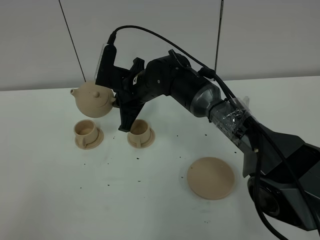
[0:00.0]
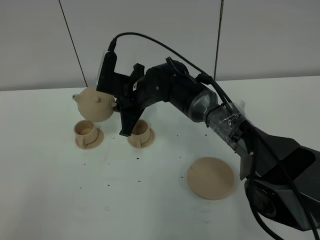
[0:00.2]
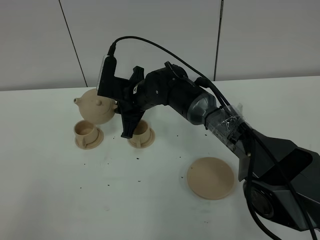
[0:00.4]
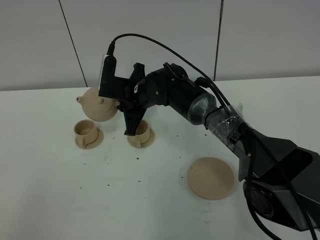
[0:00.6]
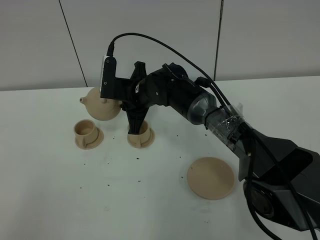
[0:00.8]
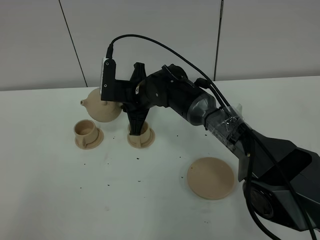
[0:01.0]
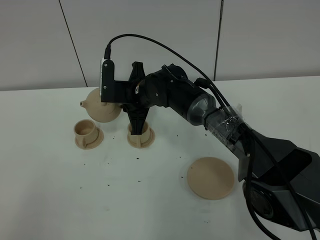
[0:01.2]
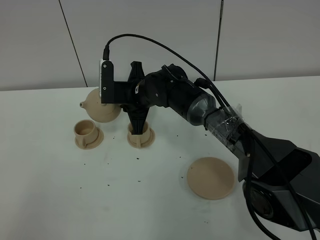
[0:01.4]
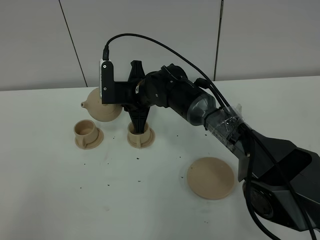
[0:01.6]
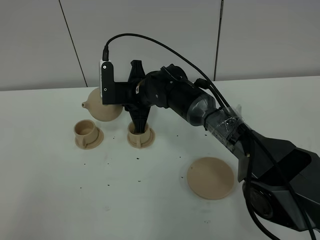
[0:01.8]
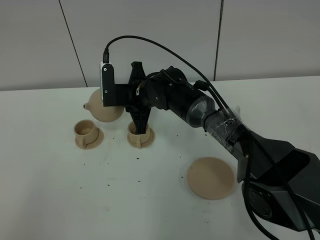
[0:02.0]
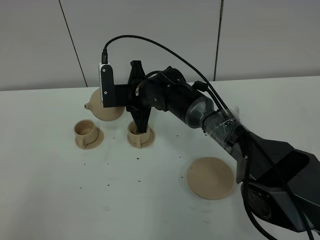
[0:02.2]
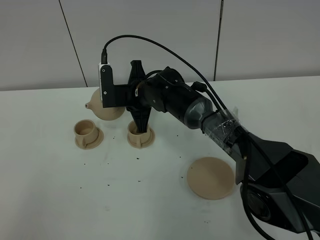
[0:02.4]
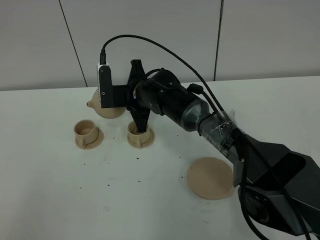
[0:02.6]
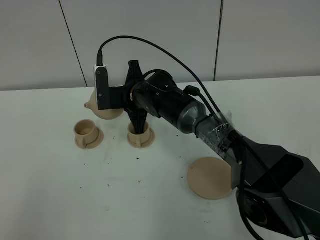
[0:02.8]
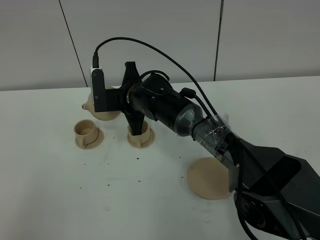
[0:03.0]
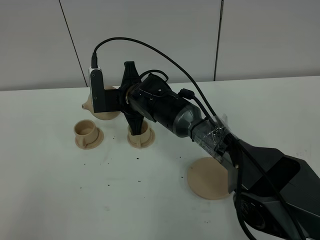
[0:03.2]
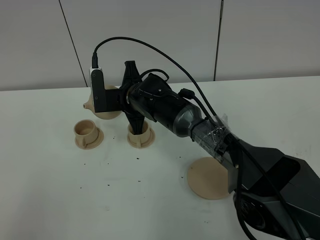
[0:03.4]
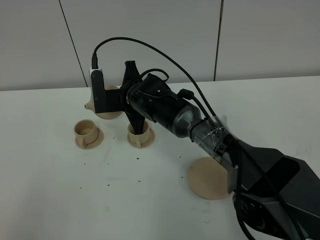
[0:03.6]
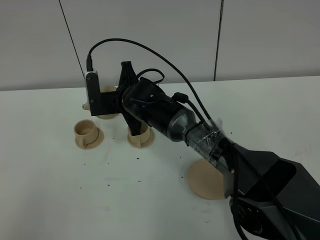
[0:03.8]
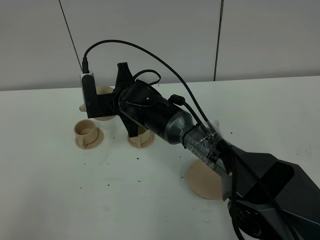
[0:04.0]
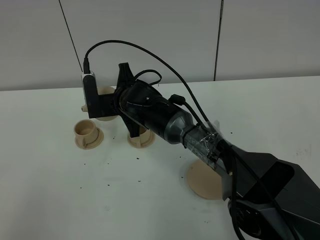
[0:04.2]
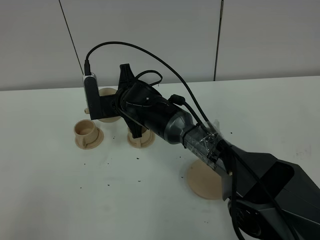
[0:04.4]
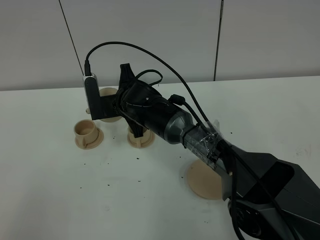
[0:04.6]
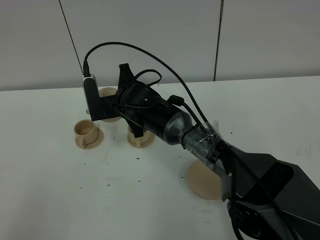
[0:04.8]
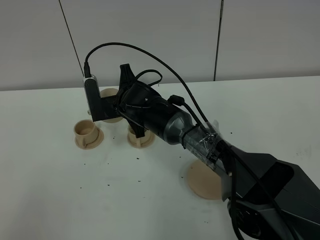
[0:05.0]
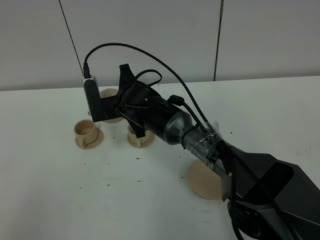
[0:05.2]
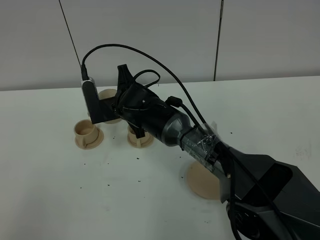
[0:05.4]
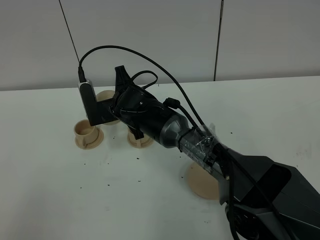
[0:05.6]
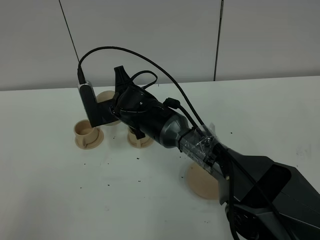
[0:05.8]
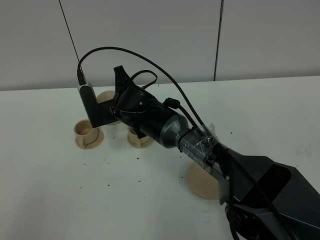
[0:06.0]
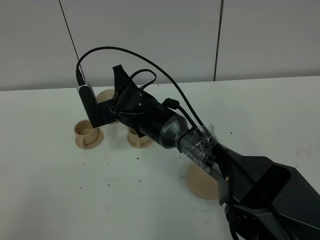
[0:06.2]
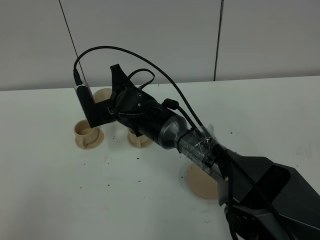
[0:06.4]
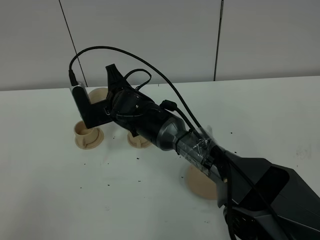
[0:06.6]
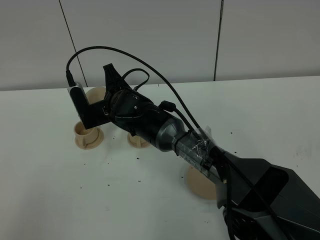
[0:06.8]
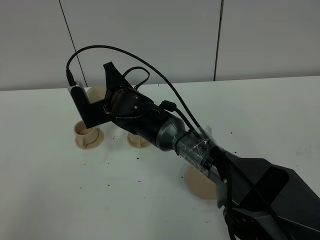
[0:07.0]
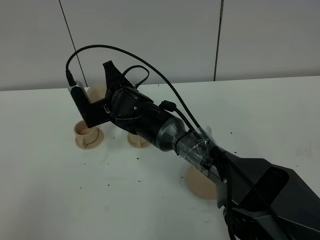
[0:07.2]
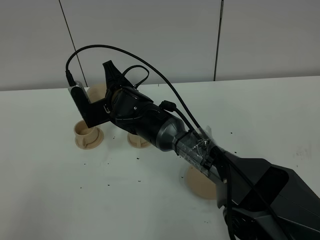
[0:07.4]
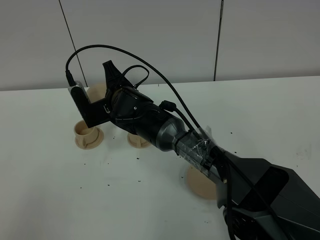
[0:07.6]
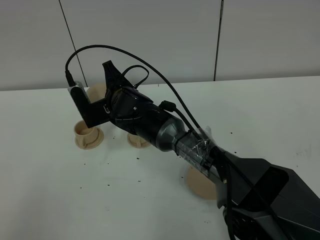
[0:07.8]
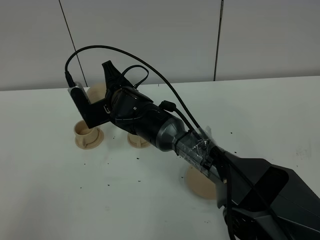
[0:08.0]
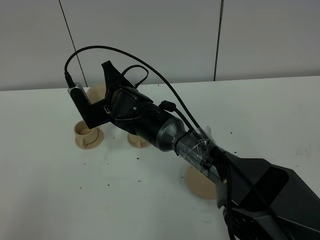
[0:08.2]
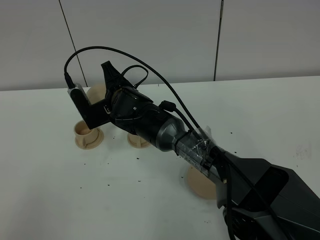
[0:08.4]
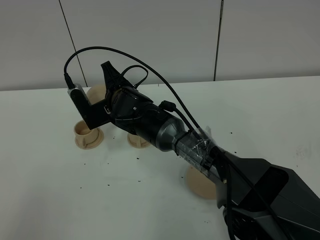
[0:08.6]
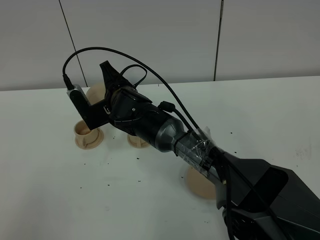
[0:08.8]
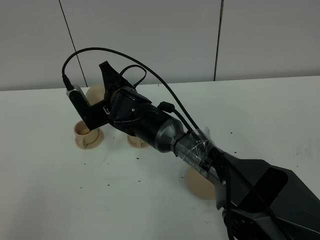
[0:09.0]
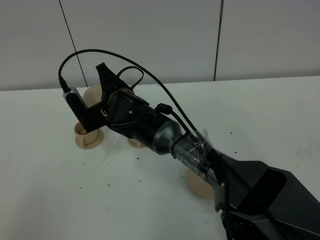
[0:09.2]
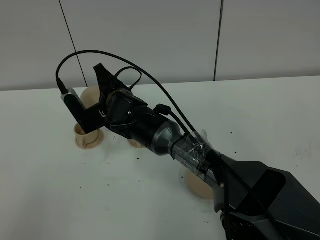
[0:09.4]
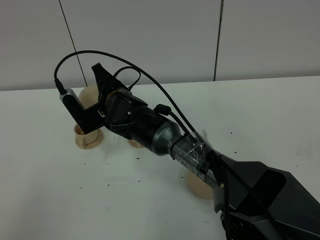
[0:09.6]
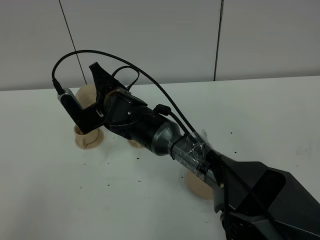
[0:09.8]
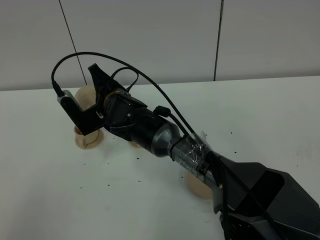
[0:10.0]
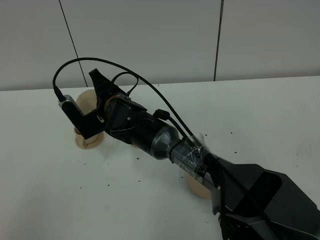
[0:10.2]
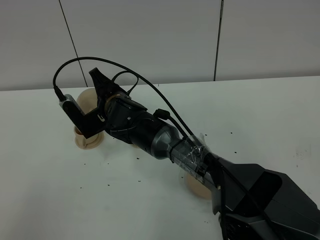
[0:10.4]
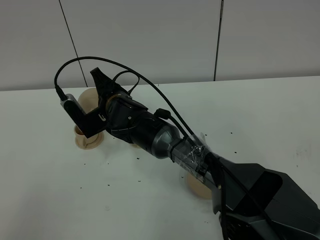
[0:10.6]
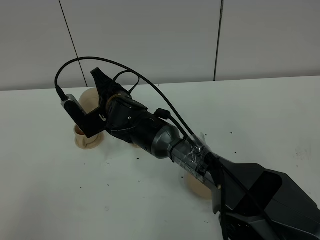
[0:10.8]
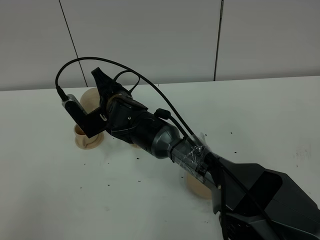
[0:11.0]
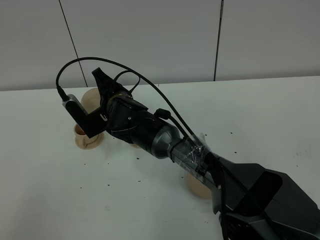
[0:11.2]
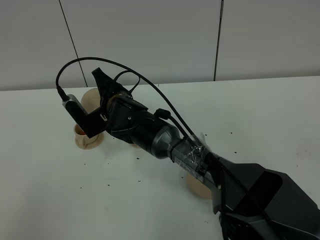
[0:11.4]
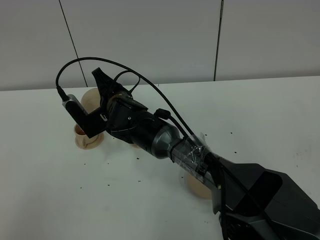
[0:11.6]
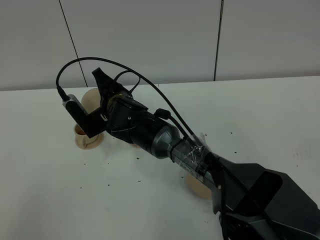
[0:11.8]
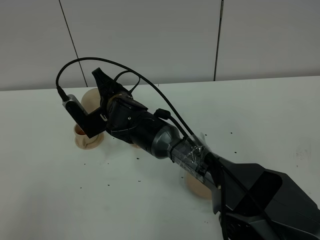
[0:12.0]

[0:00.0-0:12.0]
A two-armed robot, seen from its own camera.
Task of the whole recording: grasp the brown teapot and pour the tea into the two brown teacups one by one, put the brown teapot back in its original place.
0:00.0 to 0:01.6: The grippers make only small movements.
0:01.6 to 0:04.4: There are only small adjustments of the grippers.
0:04.4 to 0:07.6: The grippers stay close to where they were, moving slightly.
0:07.6 to 0:09.0: Both grippers stay put.
0:09.0 to 0:10.4: The grippers stay close to where they were, moving slightly.
0:10.4 to 0:12.0: Both grippers stay put.

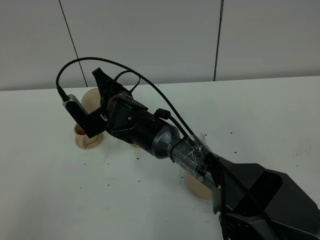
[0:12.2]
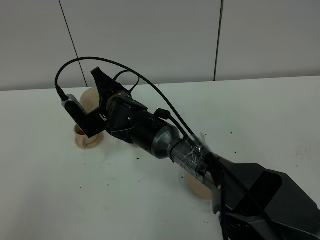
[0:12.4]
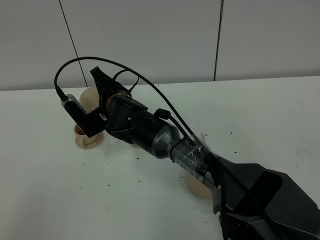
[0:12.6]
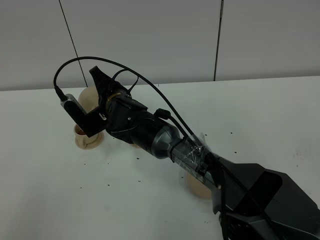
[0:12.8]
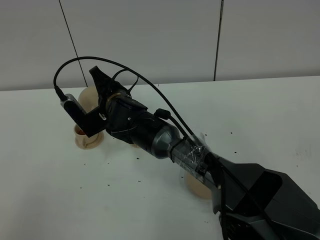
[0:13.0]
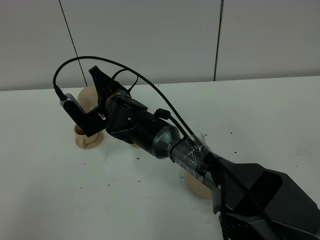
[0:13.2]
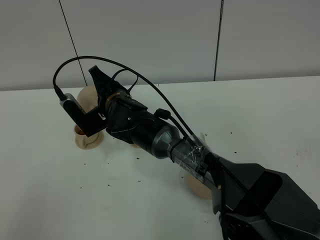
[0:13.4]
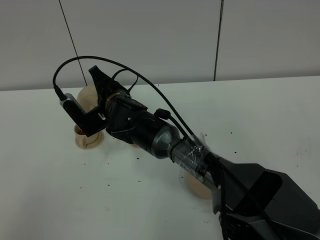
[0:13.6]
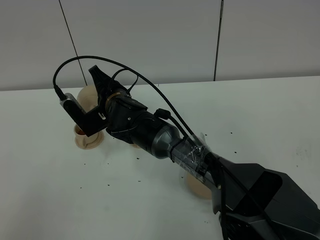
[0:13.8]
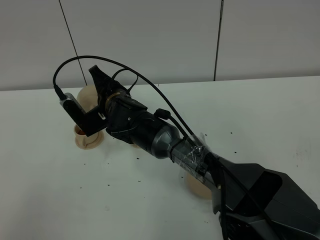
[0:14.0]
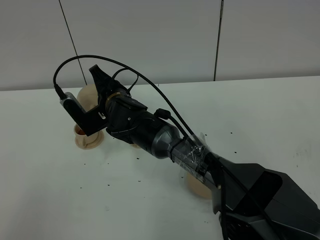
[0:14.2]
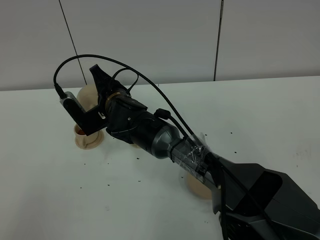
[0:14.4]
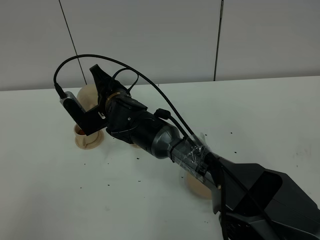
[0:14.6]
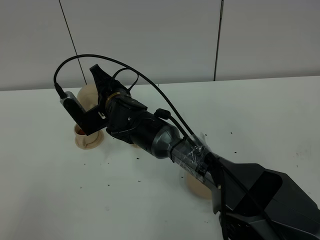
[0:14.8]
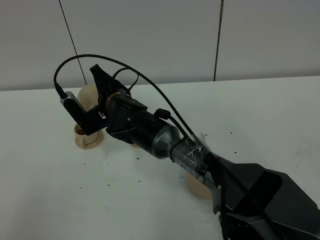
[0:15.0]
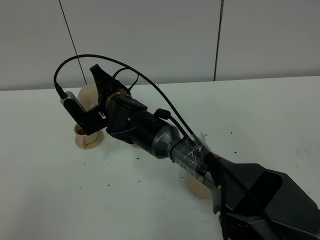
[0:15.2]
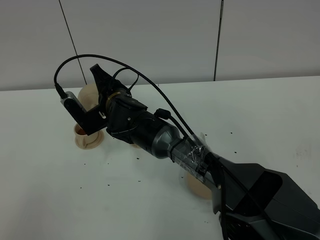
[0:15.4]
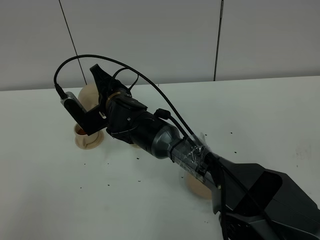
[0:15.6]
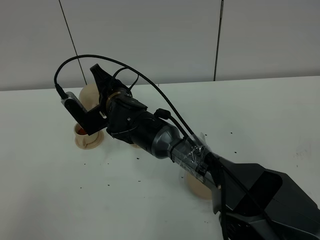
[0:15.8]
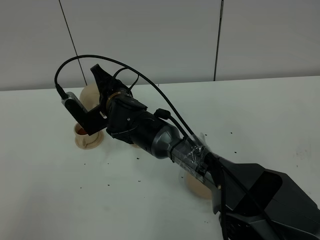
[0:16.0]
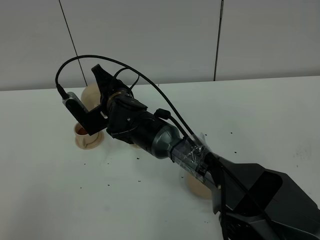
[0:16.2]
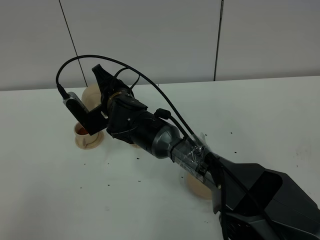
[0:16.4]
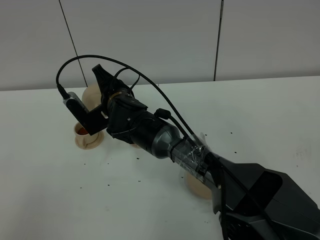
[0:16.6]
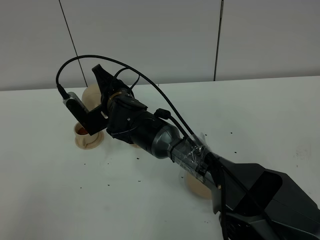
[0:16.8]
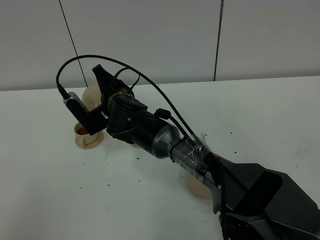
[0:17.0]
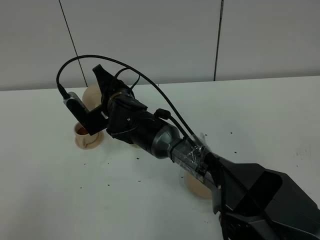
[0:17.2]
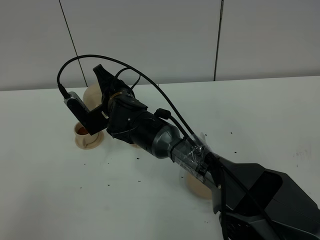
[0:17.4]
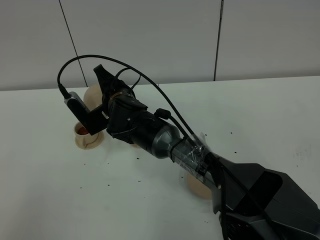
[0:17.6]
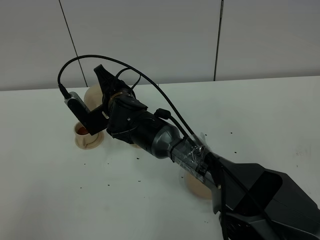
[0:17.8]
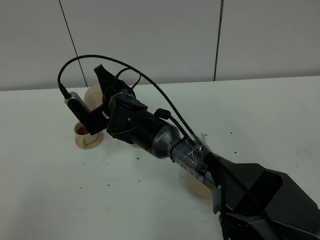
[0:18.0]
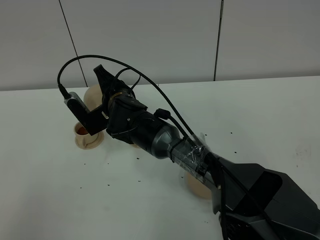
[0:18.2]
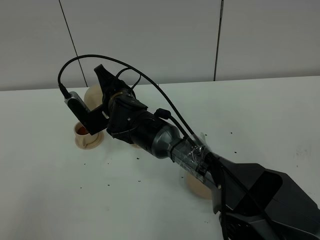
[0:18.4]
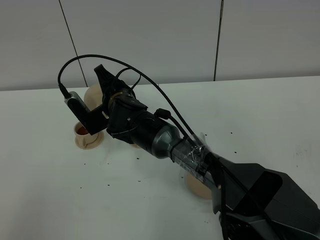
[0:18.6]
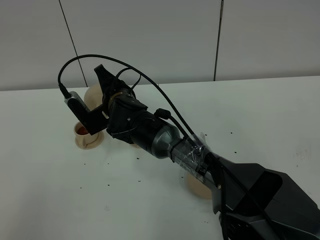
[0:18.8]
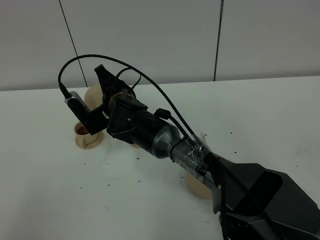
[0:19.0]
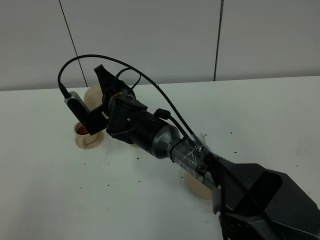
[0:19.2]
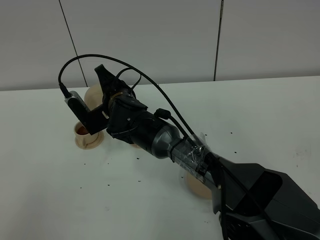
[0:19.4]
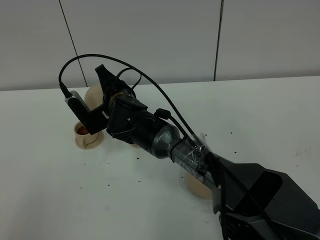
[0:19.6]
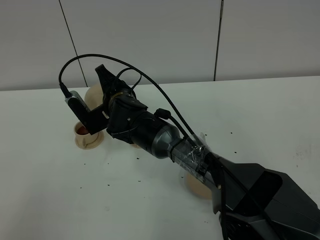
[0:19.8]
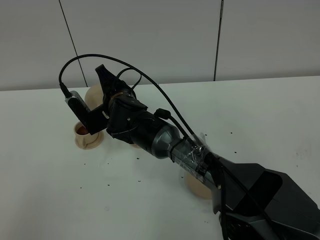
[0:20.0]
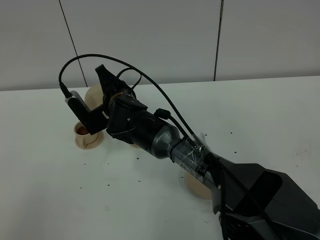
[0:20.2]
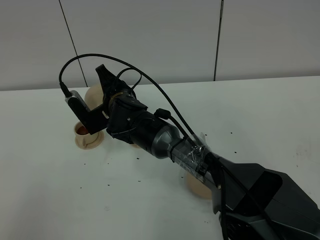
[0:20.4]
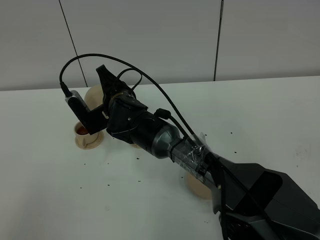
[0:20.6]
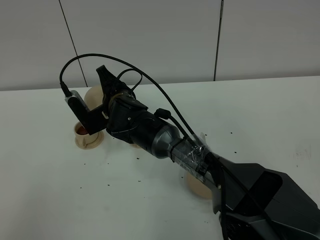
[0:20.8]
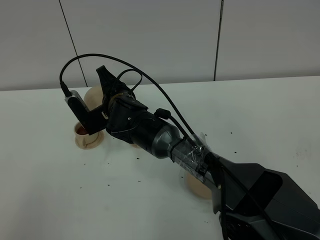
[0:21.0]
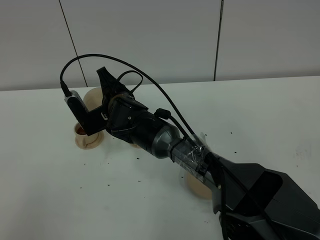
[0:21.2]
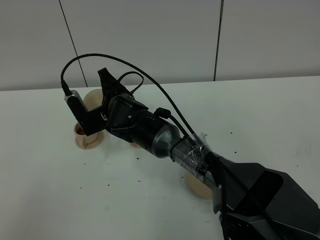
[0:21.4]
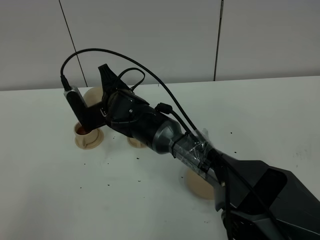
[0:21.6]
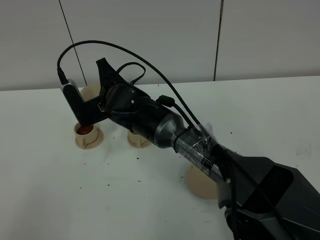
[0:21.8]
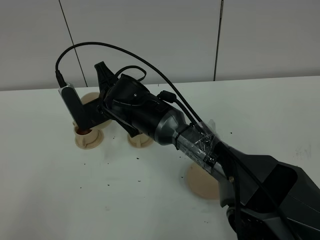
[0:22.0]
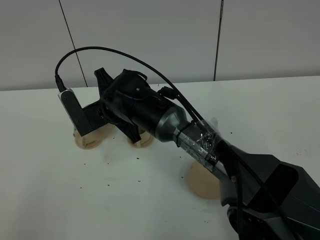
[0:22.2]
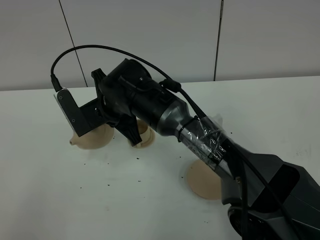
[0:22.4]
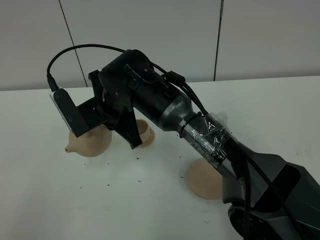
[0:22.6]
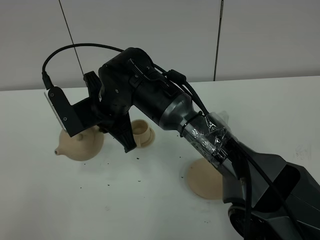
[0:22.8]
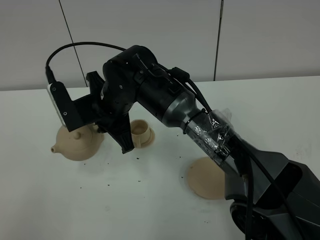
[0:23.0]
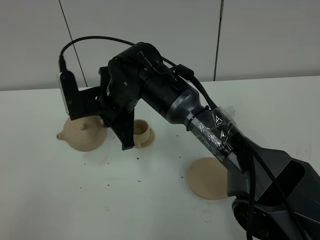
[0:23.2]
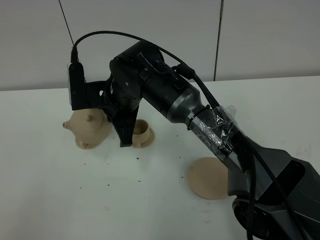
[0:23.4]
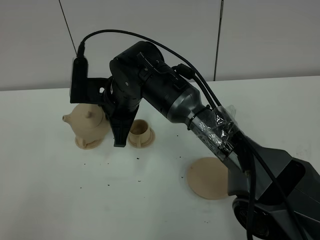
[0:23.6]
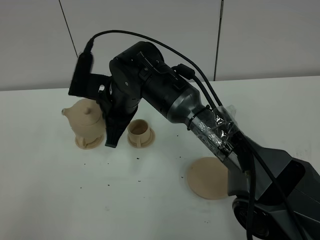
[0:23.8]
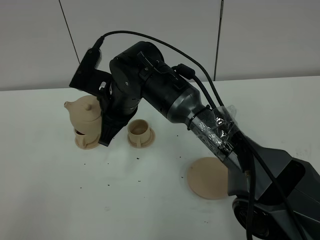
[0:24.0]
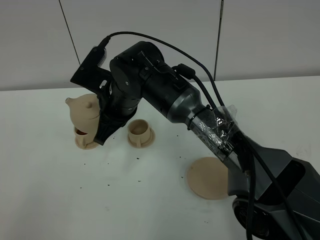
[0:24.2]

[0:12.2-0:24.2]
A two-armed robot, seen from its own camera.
Task of the whole recording: grasp the brown teapot and pour the tea into the two brown teacups one by one, put the brown teapot back in its original place.
Step, 0:12.2 to 0:21.4: Pour tea into the teacup with the right gripper.
0:12.2 to 0:19.8: Both grippers stay put.
0:19.8 to 0:21.2: The grippers make only small movements.
0:21.2 to 0:22.6: The right gripper travels upward and backward by some 10 cm.
